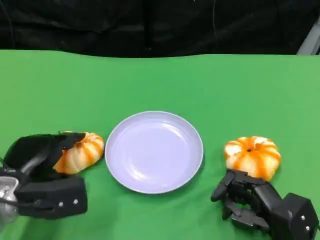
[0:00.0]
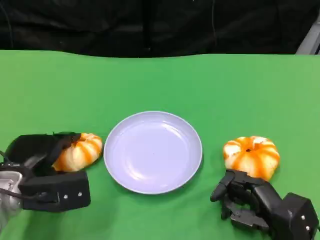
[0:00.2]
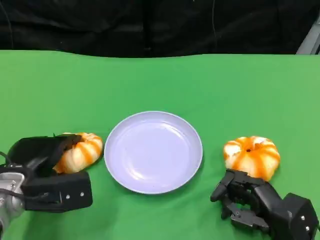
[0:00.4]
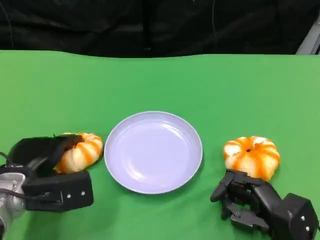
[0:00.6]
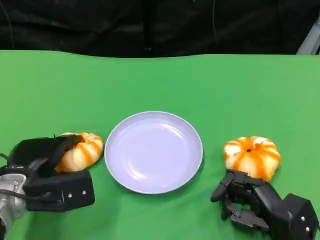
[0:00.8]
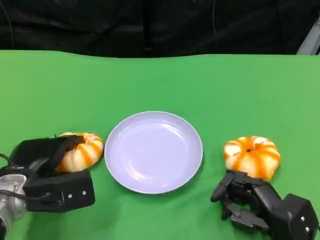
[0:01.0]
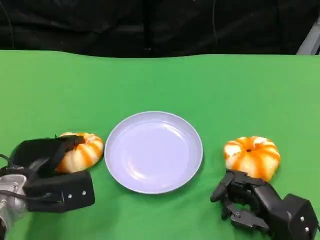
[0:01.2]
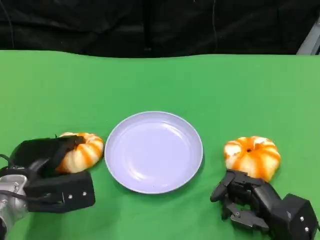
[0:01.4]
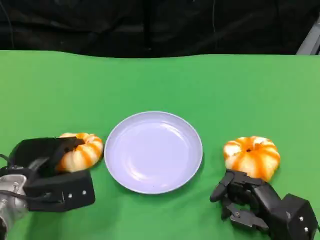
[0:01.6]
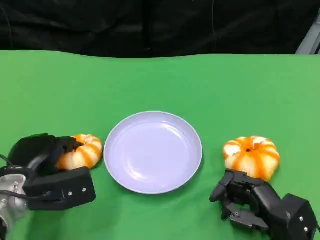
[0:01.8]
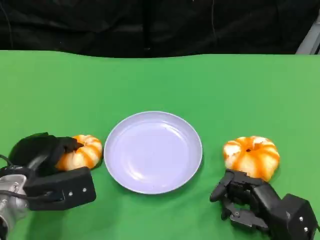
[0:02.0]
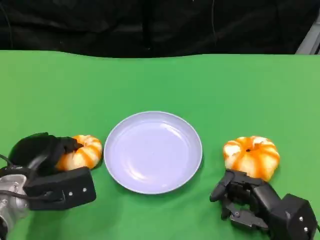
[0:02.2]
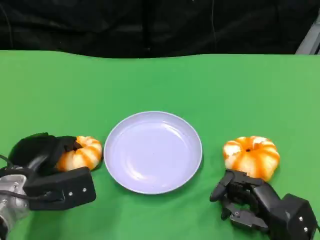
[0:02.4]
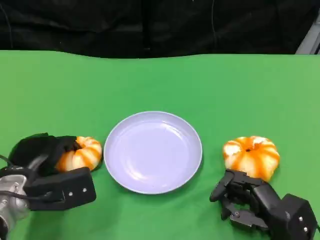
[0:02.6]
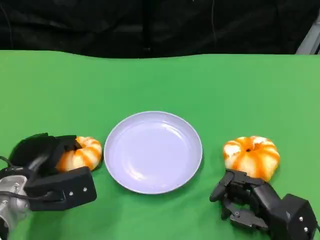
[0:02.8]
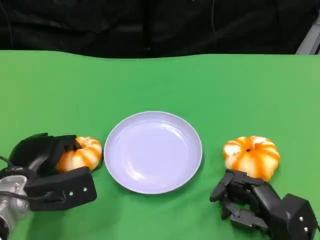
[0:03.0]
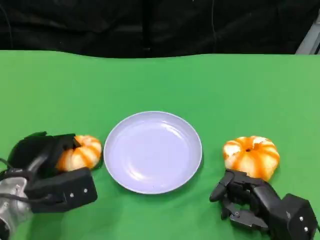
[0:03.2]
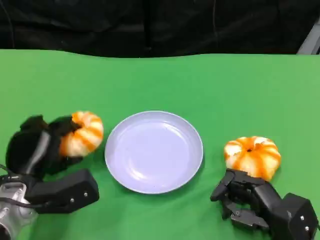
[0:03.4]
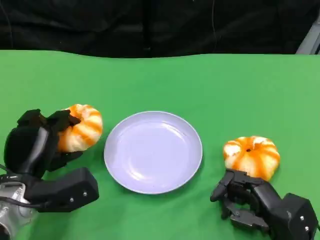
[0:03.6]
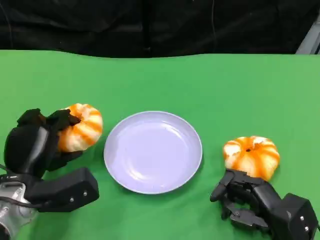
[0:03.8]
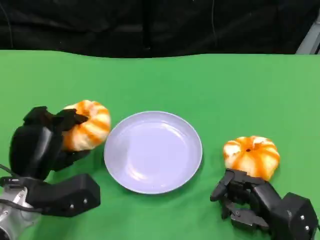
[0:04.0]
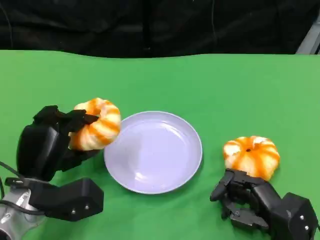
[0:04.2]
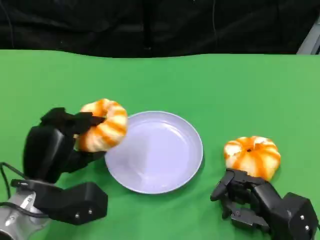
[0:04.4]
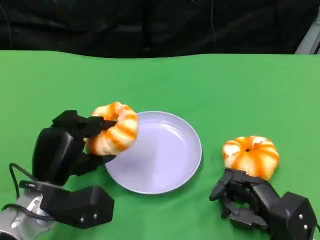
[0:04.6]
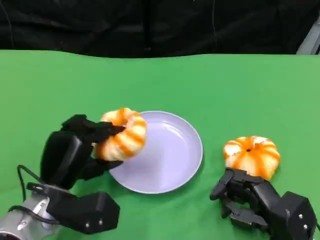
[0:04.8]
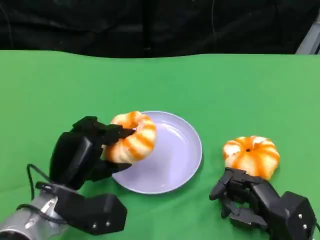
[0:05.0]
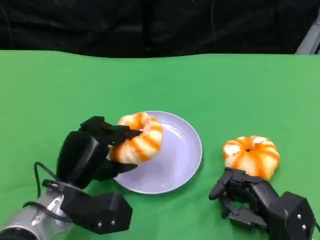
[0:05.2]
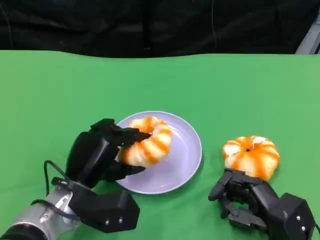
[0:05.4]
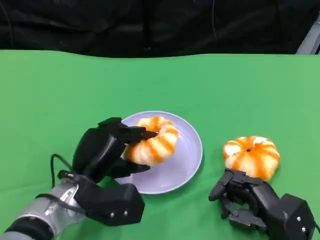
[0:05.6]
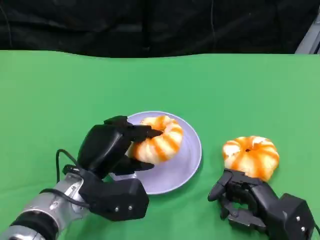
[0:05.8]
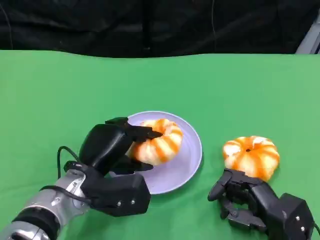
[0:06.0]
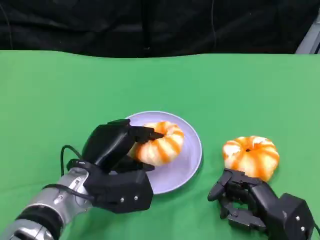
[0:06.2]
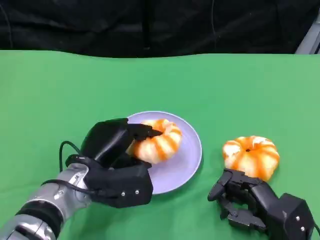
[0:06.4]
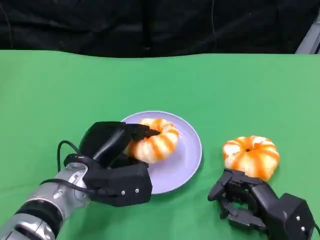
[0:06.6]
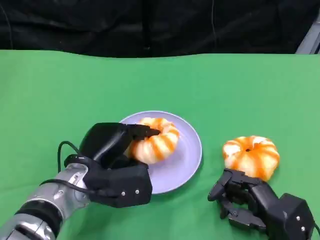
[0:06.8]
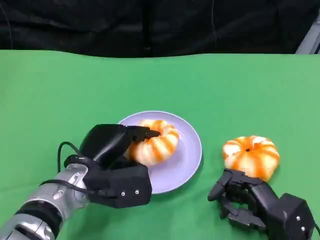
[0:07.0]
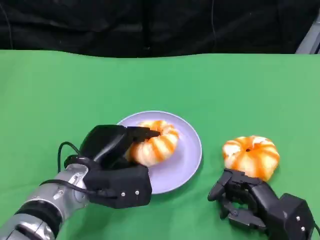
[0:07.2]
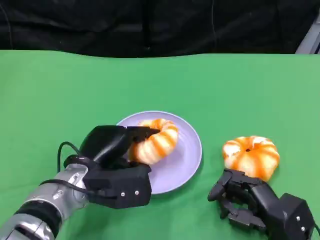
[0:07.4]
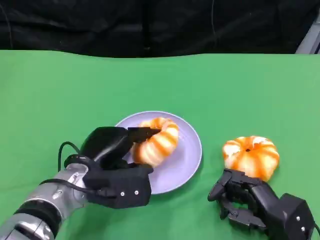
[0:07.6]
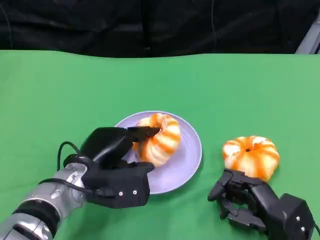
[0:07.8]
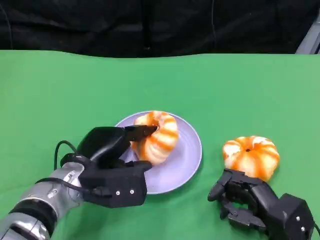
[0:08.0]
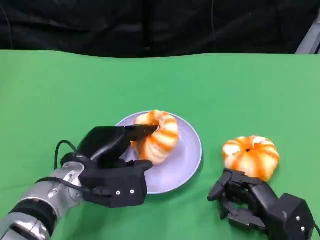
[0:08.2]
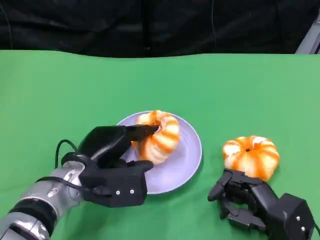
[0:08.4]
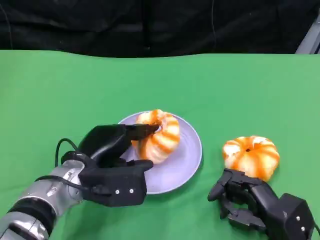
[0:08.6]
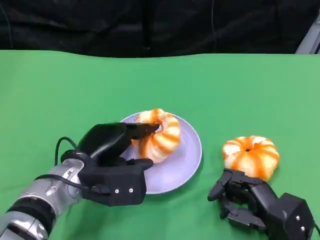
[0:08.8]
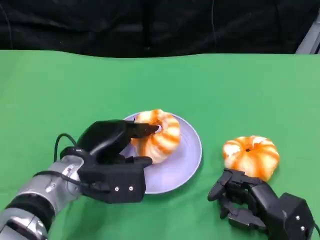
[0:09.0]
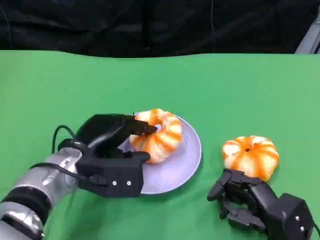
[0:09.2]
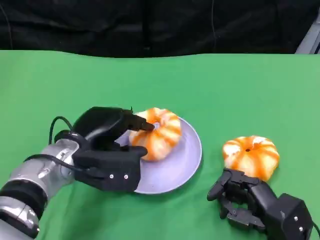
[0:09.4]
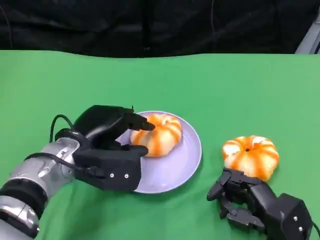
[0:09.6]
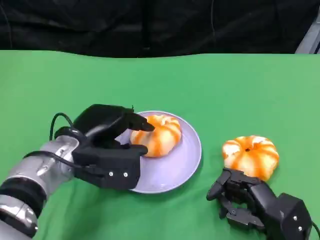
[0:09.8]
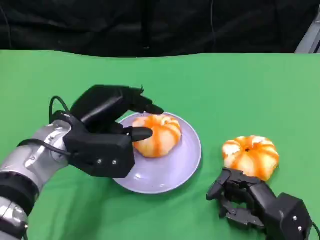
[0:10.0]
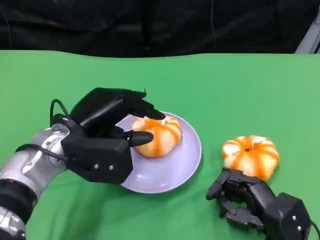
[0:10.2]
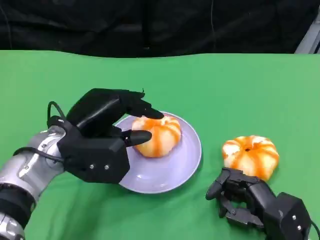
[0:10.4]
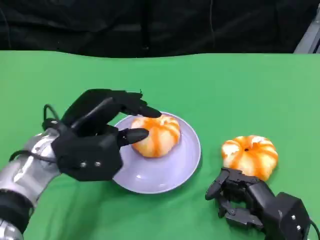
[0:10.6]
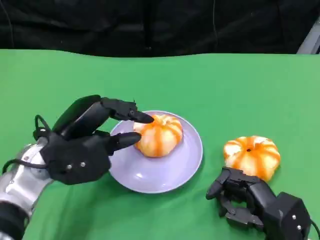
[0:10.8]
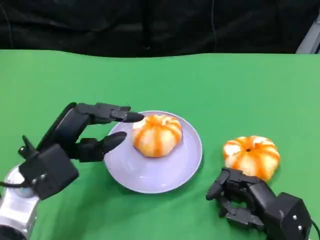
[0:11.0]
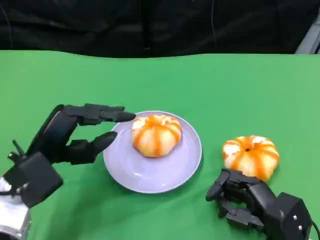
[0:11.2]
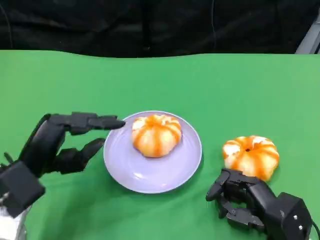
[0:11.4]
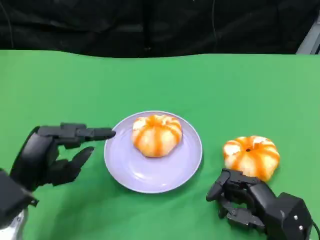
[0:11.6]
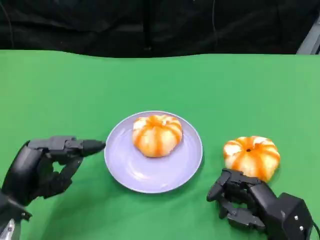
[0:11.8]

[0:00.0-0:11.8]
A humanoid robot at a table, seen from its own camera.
Task of the whole recording: Grasp the bread from the table and place it into the plate.
0:00.0 to 0:01.4: Neither hand changes place.
0:01.4 to 0:03.0: The hands stay close to where they were, moving slightly.
0:04.4 to 0:06.0: The left hand heads to the right, covering some 5 cm.
0:06.0 to 0:07.4: The hands move only a little.
0:07.4 to 0:08.8: Neither hand changes place.
0:08.8 to 0:10.4: The left hand shifts approximately 5 cm upward.
0:10.4 to 0:11.8: The left hand moves to the left, backward and downward, roughly 15 cm.

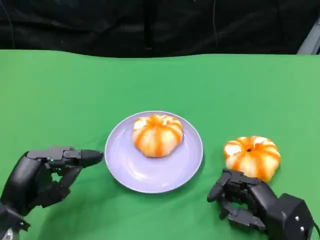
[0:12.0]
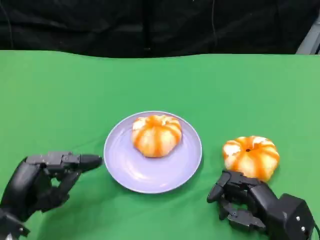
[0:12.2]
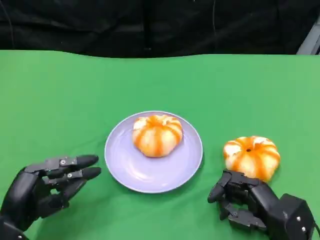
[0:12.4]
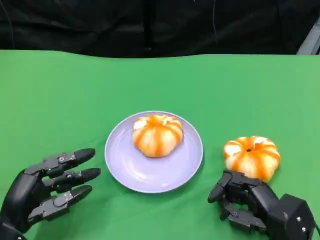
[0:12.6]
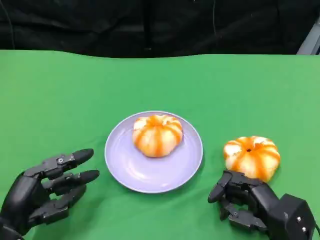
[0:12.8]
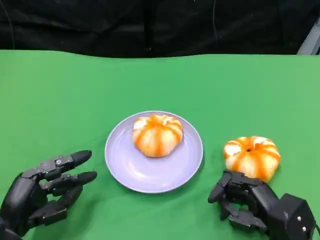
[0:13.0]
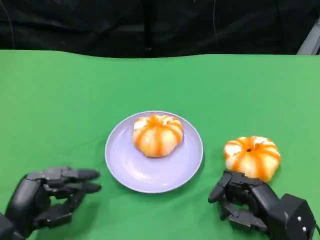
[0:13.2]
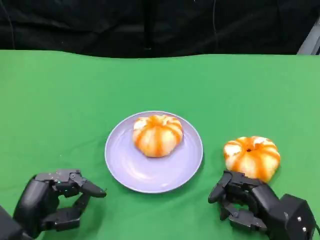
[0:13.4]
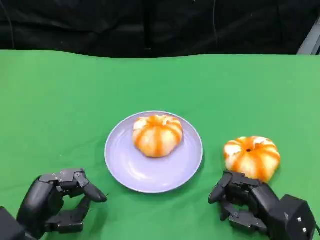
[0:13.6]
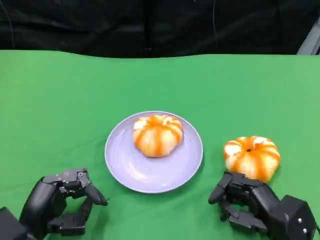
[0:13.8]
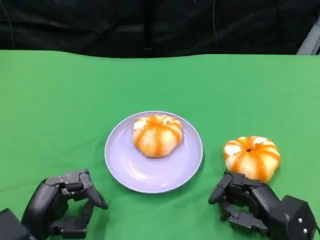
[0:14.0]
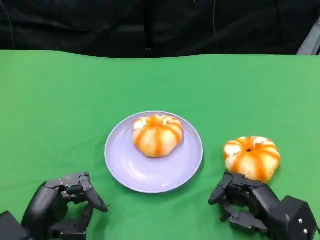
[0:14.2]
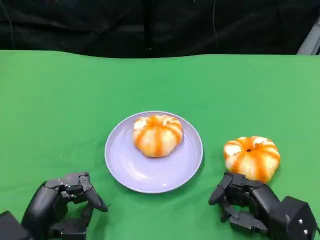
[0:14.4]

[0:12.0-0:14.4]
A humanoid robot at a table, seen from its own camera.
Task of the whole recording: Grasp the bread from the table and place it into the plate.
0:12.0 to 0:14.4: The hands make only small movements.

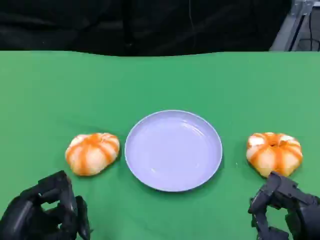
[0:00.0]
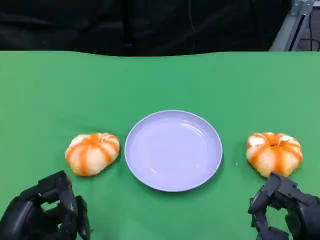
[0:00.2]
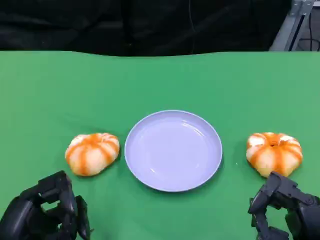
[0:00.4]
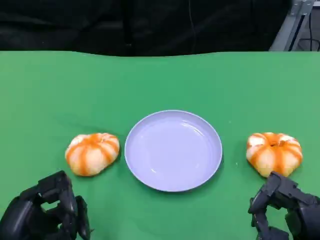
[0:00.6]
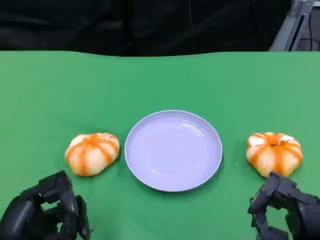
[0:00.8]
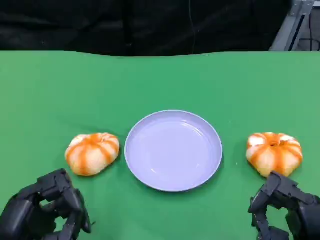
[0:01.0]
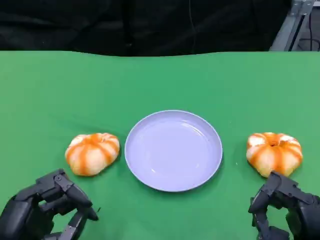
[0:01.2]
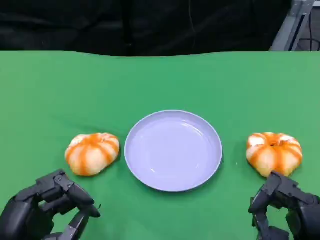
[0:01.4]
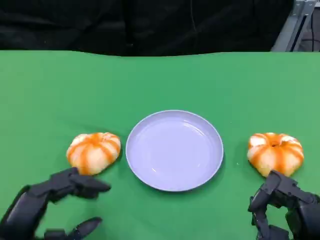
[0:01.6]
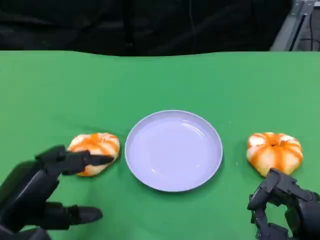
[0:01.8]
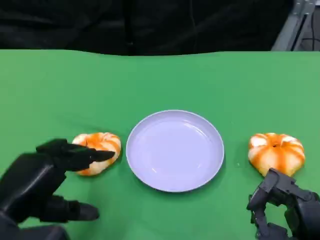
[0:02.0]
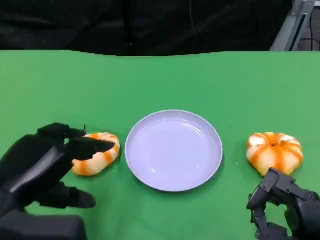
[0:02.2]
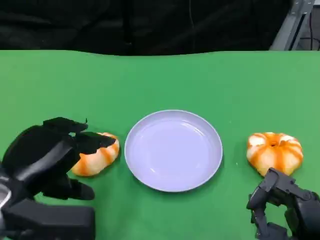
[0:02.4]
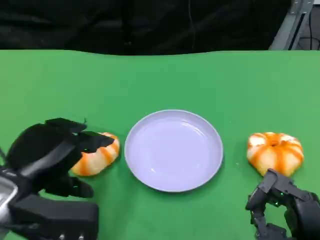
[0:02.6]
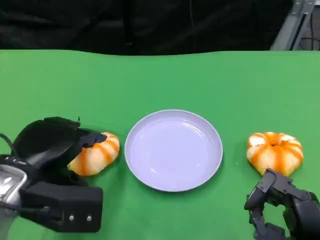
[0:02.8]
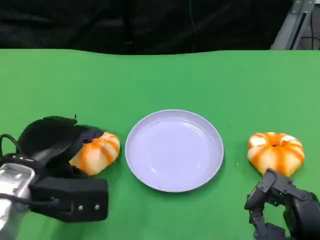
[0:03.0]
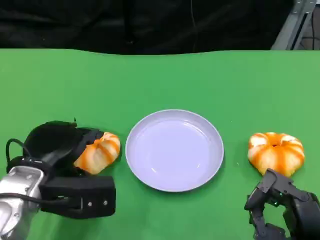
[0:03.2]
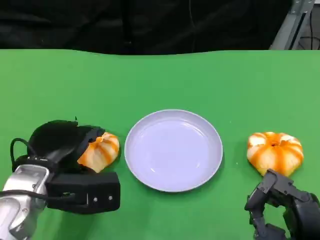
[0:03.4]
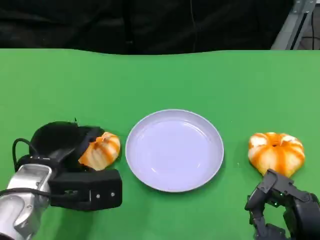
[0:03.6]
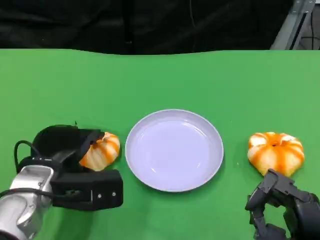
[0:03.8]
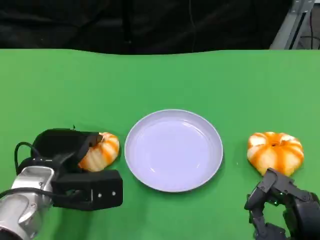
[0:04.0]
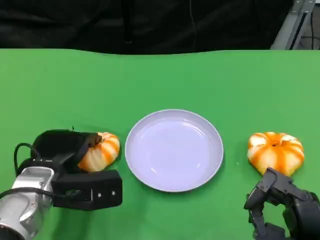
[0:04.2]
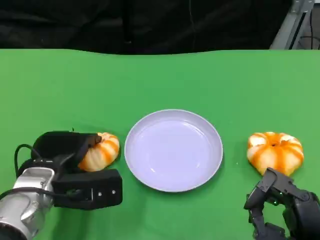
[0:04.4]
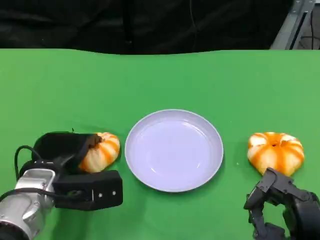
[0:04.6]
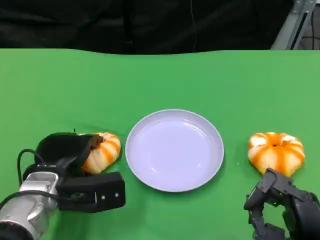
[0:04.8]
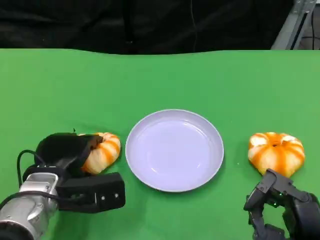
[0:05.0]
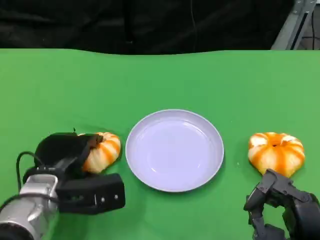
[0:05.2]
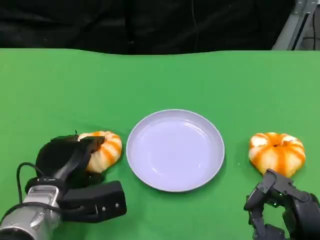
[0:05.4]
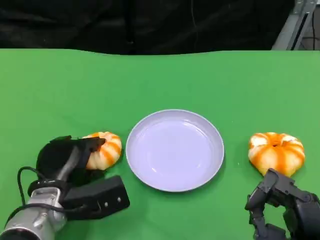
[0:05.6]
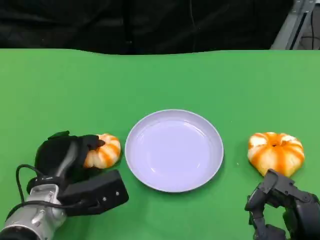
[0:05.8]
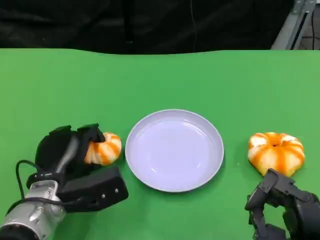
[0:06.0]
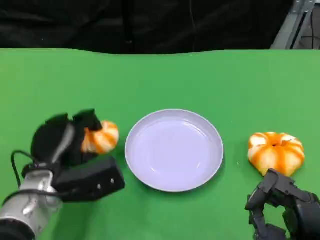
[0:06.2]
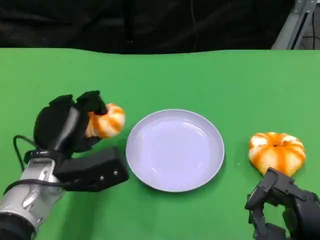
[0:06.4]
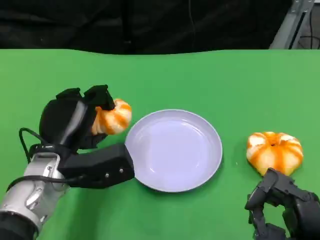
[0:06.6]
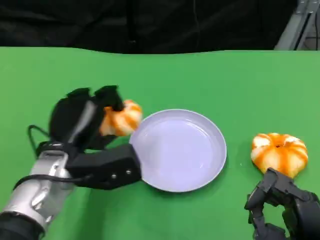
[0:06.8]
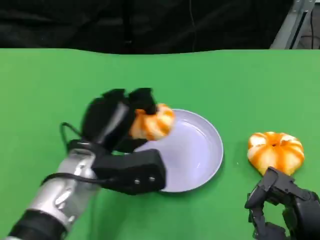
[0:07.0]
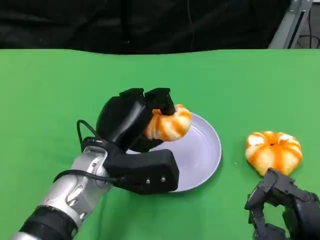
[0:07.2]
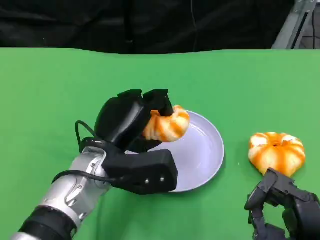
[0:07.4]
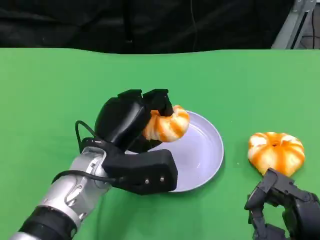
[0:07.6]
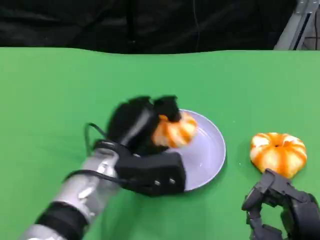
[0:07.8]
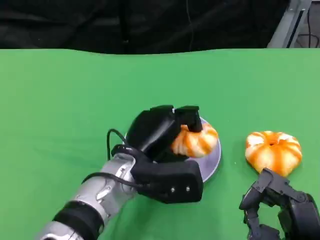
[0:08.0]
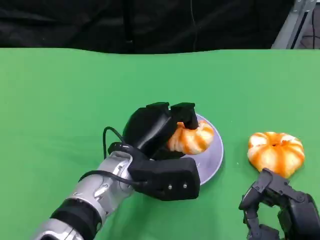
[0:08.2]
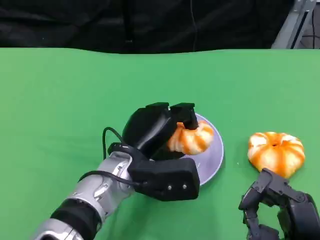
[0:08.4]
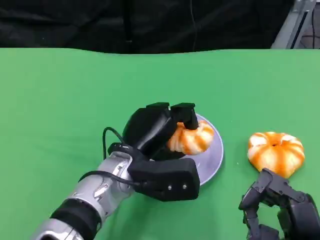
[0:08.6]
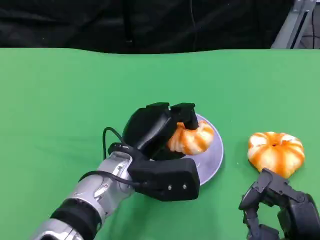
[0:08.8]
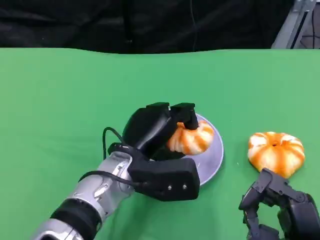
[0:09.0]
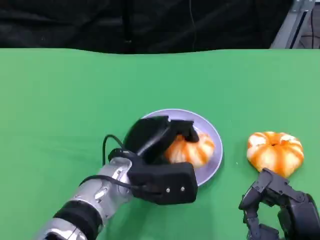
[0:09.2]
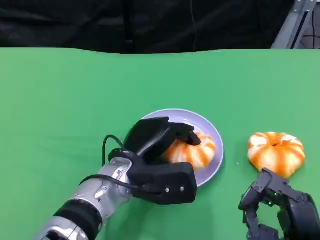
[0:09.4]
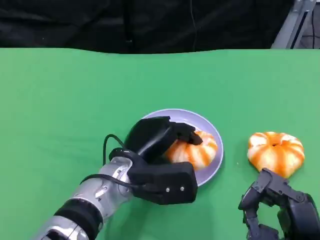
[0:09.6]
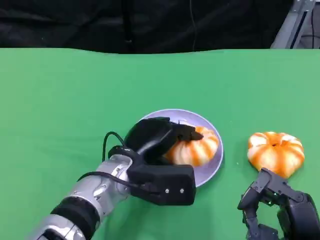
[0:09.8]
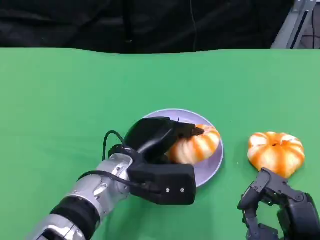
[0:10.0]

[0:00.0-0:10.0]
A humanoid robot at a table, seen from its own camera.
Task of the whole recording: Grasp the bread from the table and place it into the plate.
0:00.0 to 0:01.4: The hands make only small movements.
0:01.4 to 0:02.8: The left hand heads forward, covering roughly 10 cm.
0:02.8 to 0:04.2: The left hand moves downward, roughly 5 cm.
0:05.8 to 0:07.2: The left hand shifts roughly 10 cm upward and to the right.
0:08.6 to 0:10.0: The hands move only a little.
